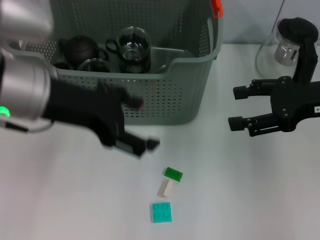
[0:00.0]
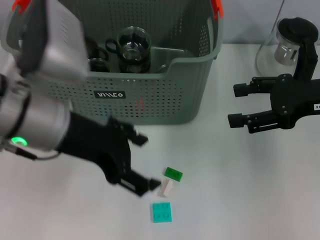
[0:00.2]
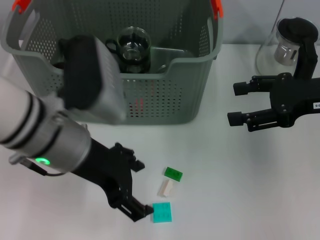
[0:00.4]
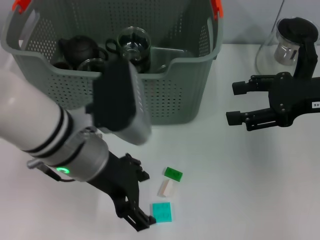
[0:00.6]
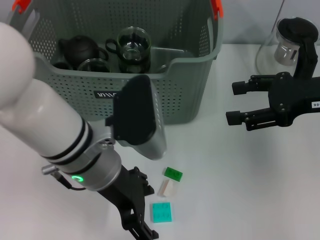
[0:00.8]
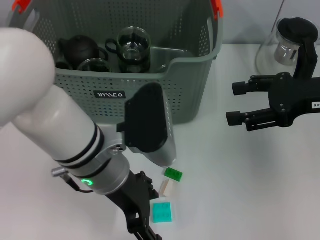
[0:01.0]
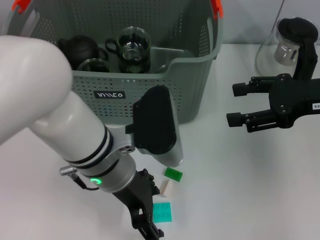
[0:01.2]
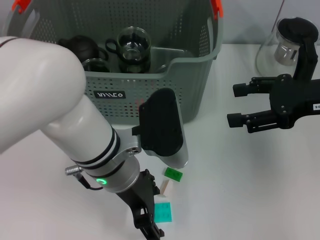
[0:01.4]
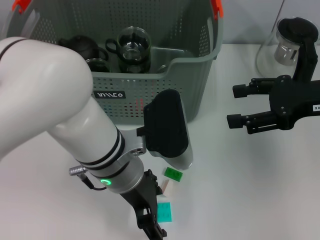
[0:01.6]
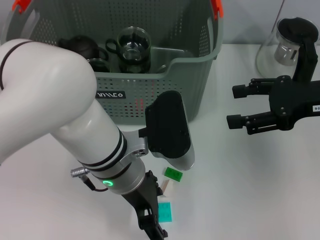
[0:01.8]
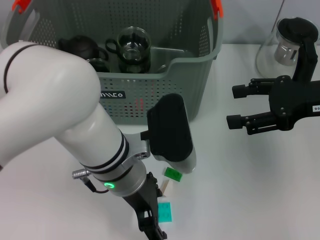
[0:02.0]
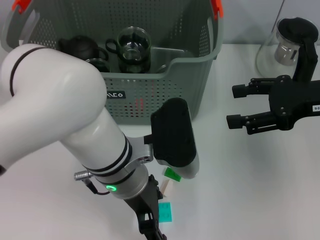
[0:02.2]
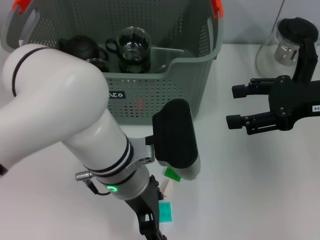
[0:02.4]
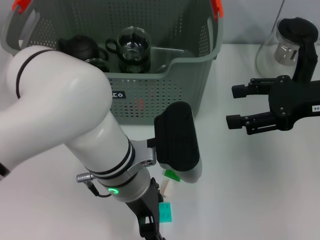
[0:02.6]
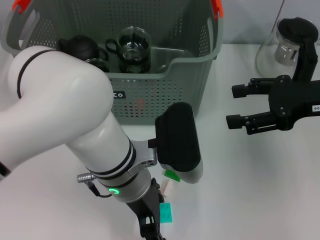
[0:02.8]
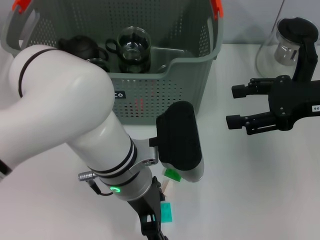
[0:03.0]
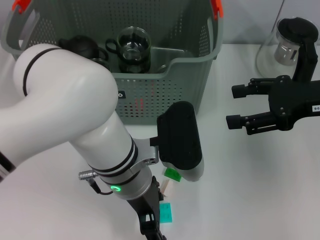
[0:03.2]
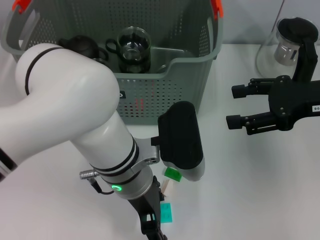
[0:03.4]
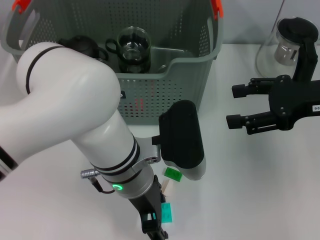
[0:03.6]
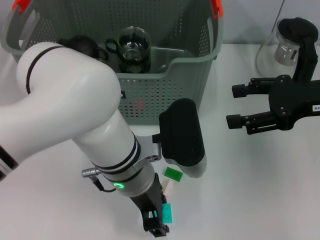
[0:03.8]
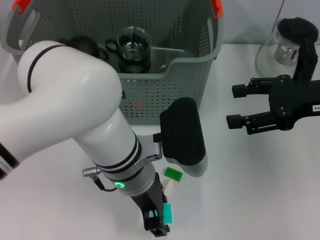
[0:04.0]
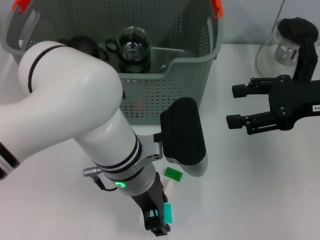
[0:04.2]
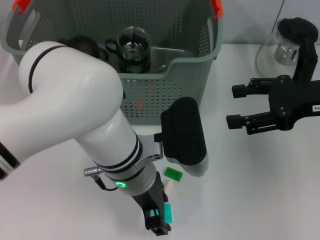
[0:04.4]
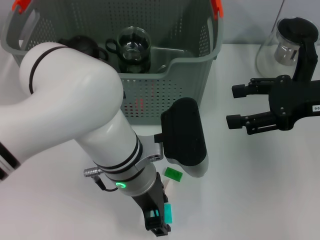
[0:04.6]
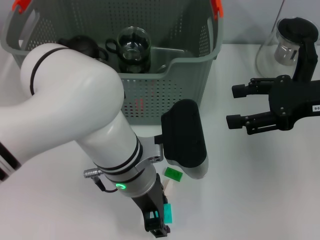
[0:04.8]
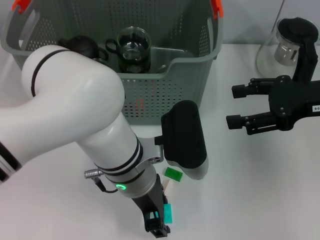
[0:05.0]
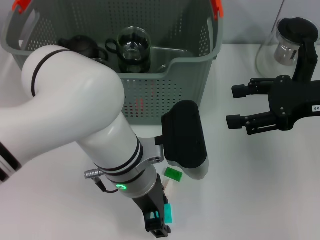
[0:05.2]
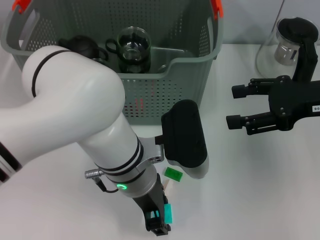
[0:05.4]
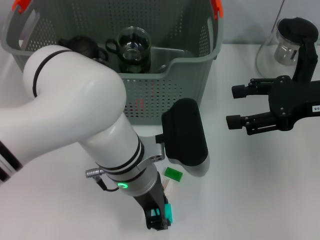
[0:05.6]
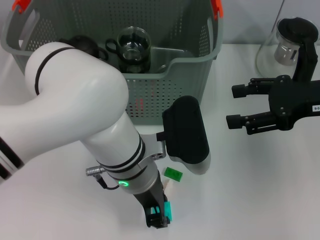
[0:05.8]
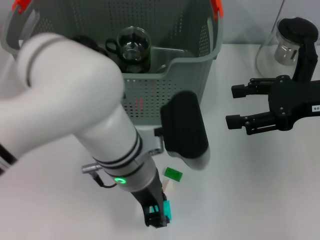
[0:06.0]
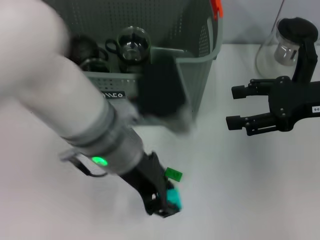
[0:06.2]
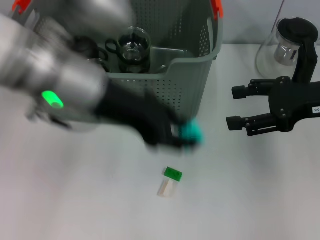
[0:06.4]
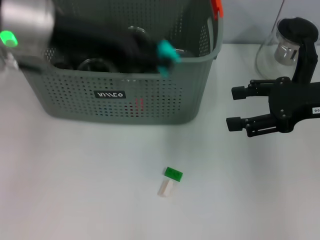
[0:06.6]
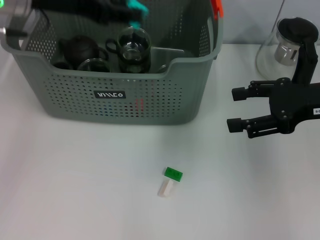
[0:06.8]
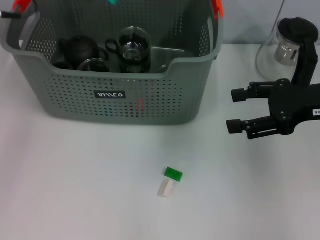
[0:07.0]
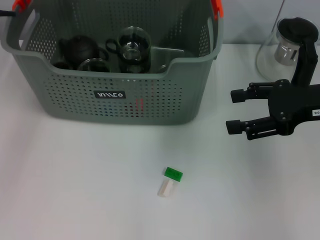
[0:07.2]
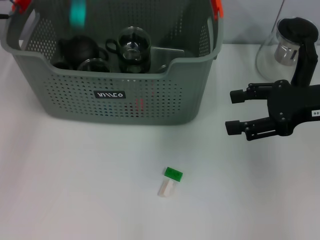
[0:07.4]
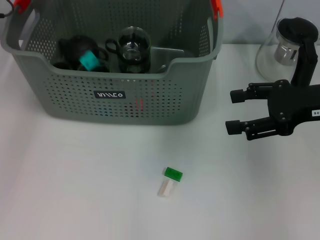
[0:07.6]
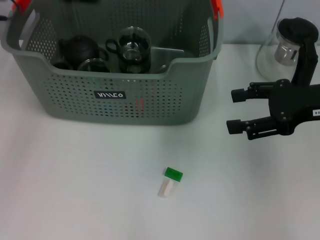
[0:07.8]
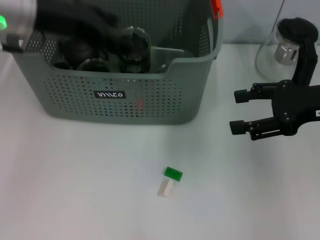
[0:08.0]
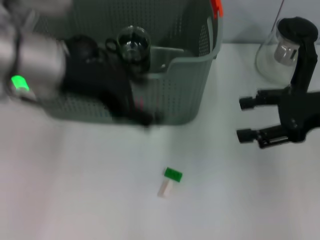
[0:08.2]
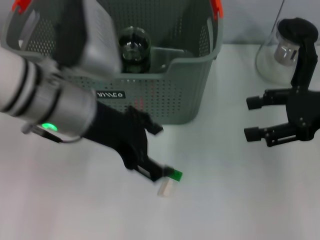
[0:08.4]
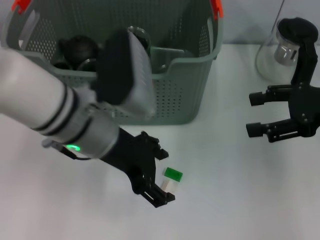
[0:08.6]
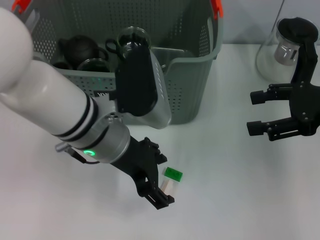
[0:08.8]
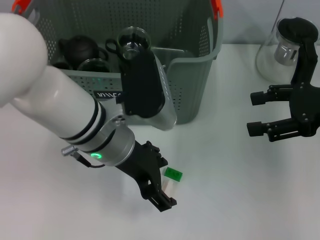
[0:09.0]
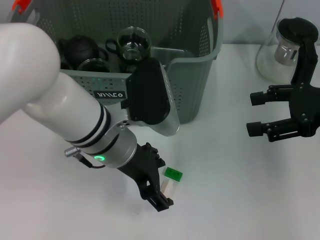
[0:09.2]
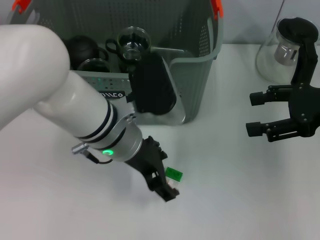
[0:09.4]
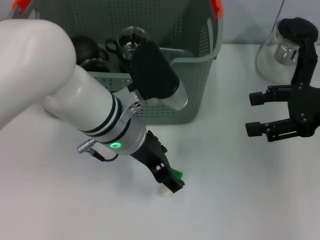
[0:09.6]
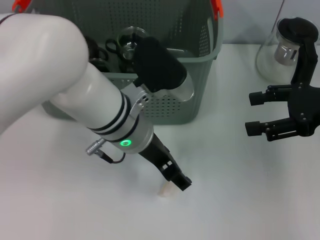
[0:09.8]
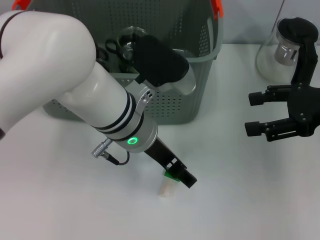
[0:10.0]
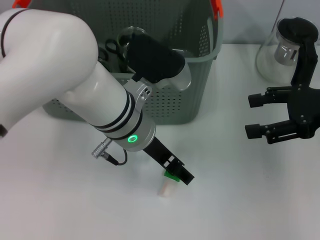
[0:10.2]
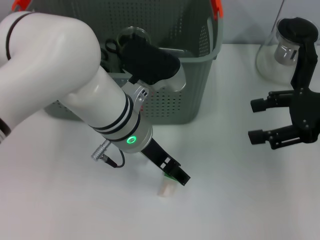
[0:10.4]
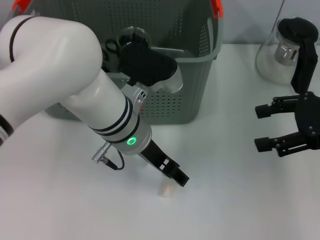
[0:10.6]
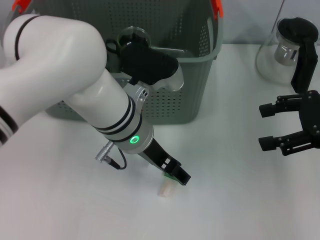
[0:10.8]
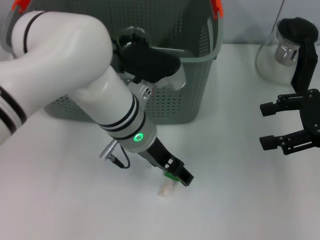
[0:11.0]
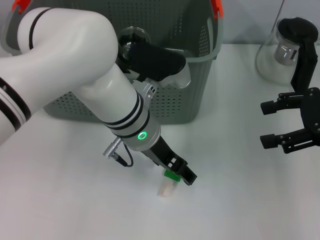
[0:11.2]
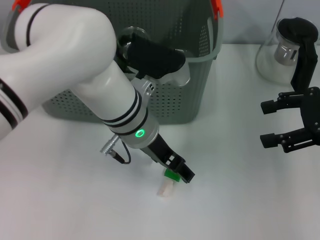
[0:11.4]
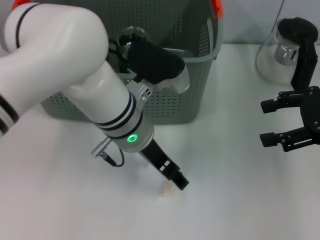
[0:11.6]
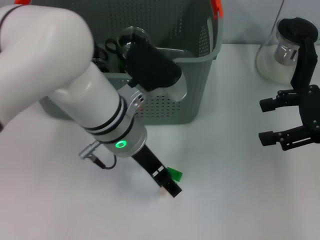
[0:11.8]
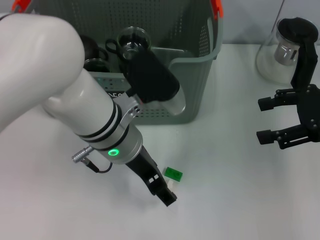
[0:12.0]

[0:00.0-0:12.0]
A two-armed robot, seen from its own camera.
Task of the whole recording: pick up the teacup on the table and place it into the storage bin, pick up the block on the table and place it into the storage bin.
Step, 0:00.0 to 0:05.6: Grasp the light blue block with left gripper.
Step, 0:06.0 to 0:07.6: Place the light blue block in the storage box with left gripper.
0:00.0 to 0:01.6: The left gripper shifts roughly 15 cm to the right and downward.
0:01.6 to 0:03.0: There are only small adjustments of the grippers.
0:03.0 to 0:06.0: Both grippers stay put.
0:06.0 to 0:07.6: The left gripper shifts about 30 cm to the left, forward and upward.
0:07.6 to 0:09.0: The left gripper goes about 25 cm to the right, backward and downward, and opens its fingers.
0:10.4 to 0:12.0: There are only small adjustments of the grippers.

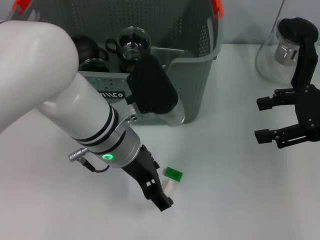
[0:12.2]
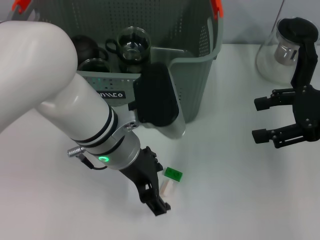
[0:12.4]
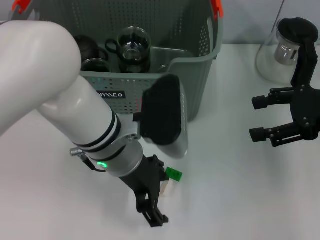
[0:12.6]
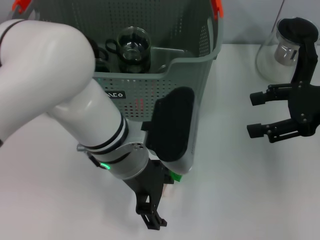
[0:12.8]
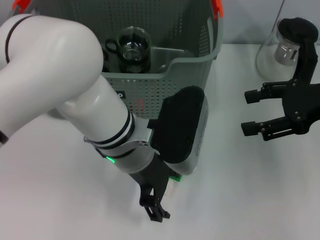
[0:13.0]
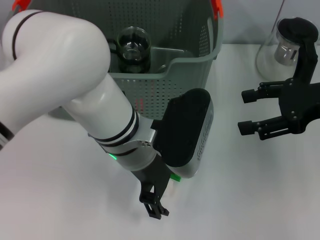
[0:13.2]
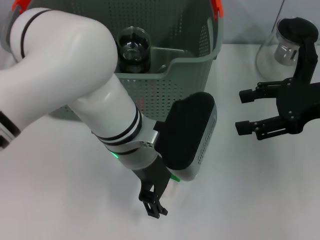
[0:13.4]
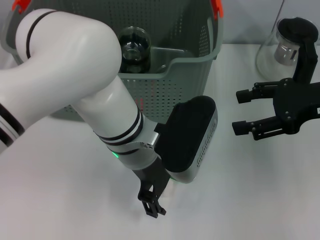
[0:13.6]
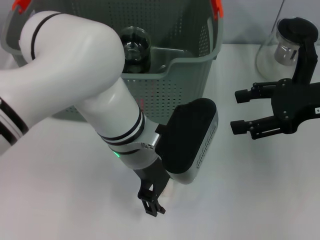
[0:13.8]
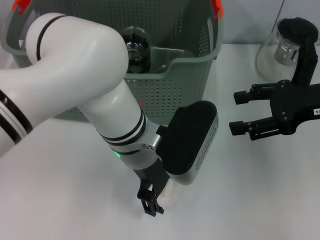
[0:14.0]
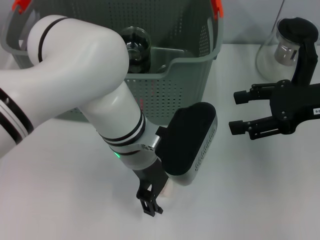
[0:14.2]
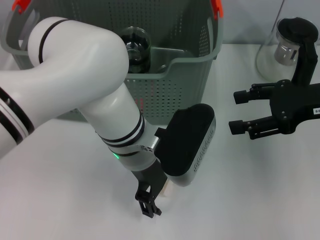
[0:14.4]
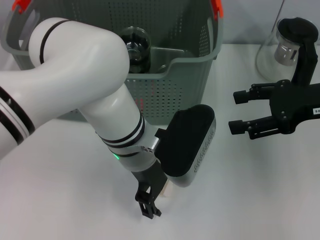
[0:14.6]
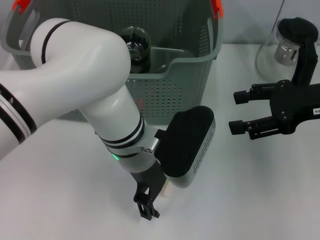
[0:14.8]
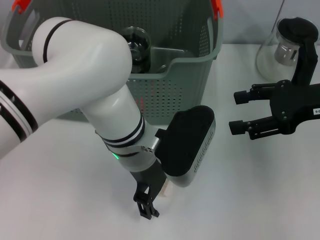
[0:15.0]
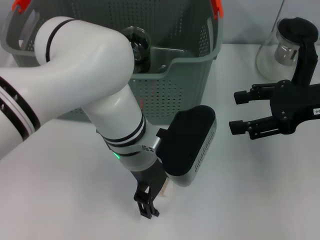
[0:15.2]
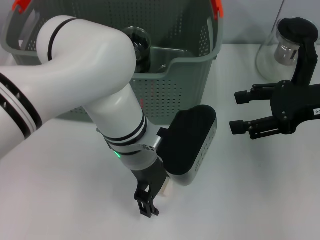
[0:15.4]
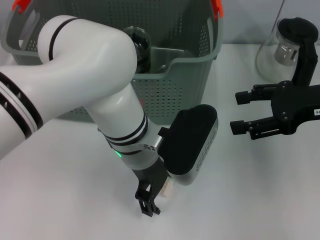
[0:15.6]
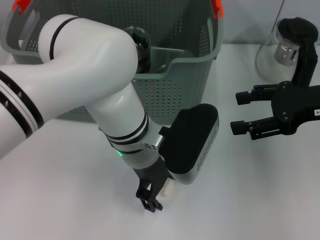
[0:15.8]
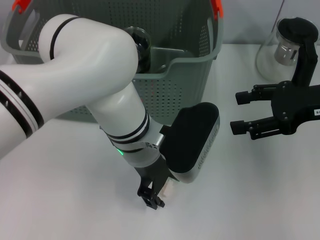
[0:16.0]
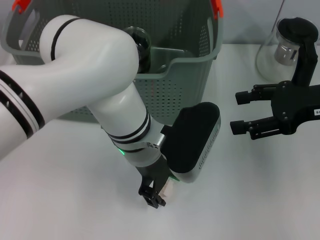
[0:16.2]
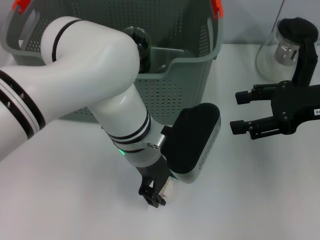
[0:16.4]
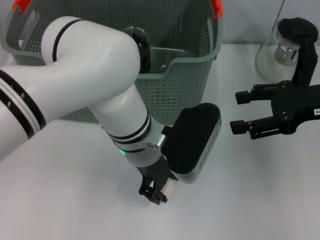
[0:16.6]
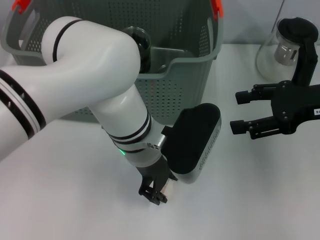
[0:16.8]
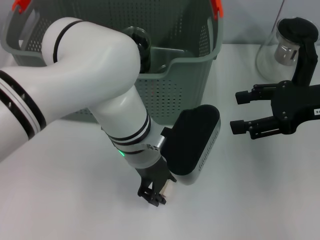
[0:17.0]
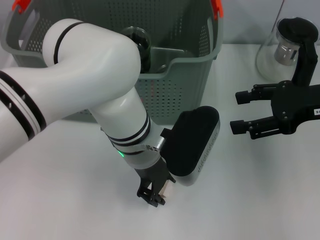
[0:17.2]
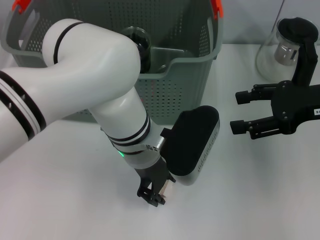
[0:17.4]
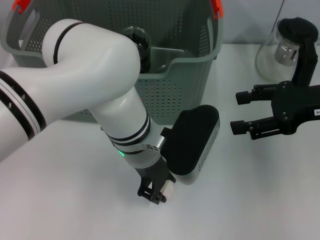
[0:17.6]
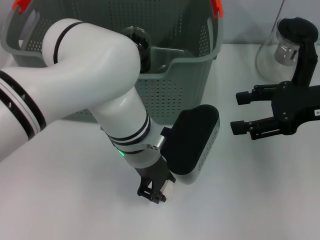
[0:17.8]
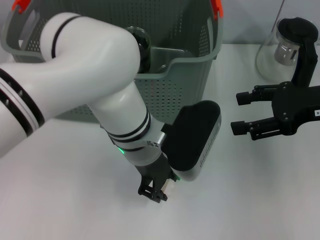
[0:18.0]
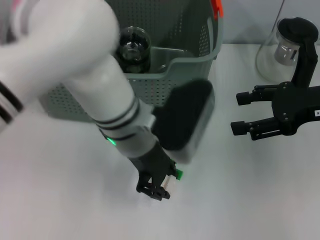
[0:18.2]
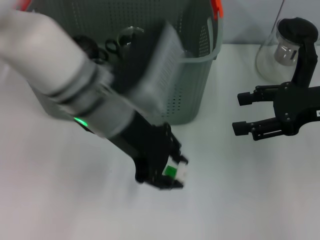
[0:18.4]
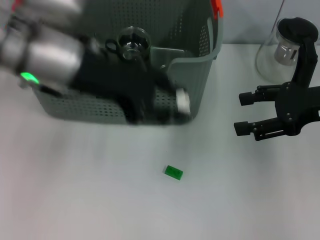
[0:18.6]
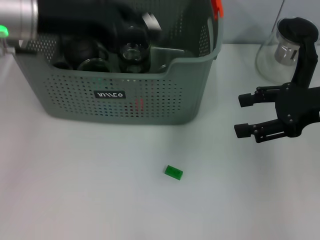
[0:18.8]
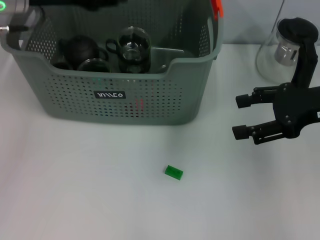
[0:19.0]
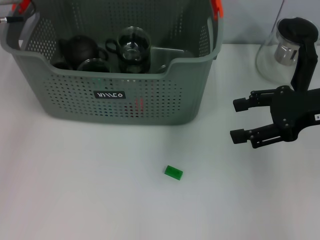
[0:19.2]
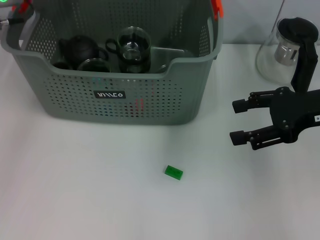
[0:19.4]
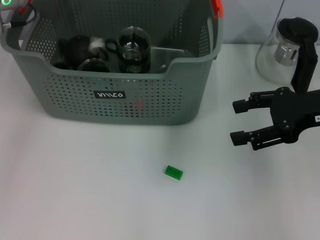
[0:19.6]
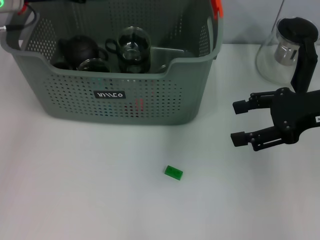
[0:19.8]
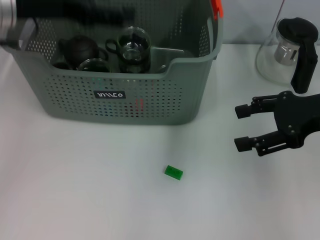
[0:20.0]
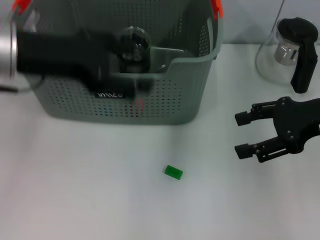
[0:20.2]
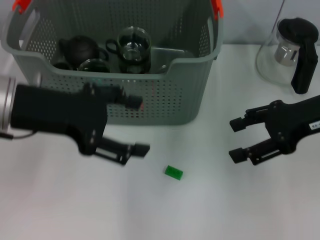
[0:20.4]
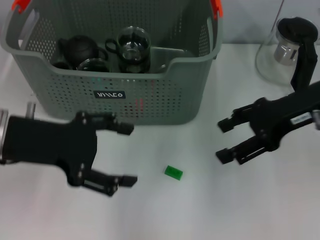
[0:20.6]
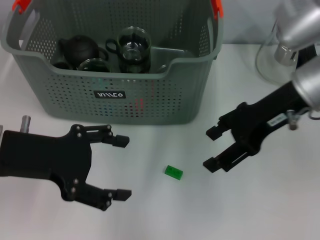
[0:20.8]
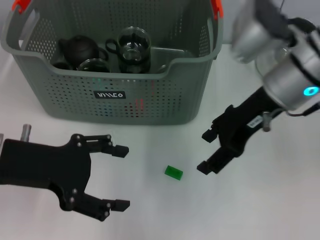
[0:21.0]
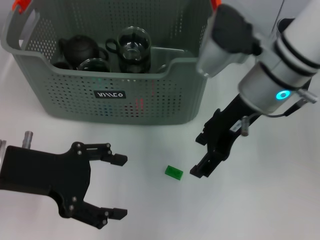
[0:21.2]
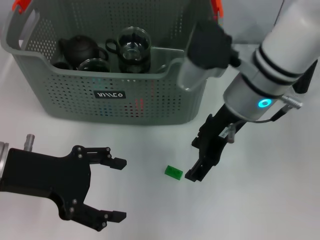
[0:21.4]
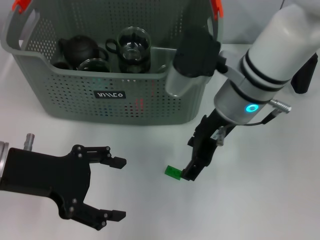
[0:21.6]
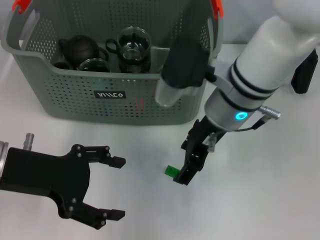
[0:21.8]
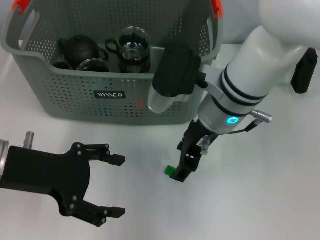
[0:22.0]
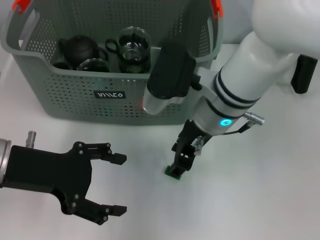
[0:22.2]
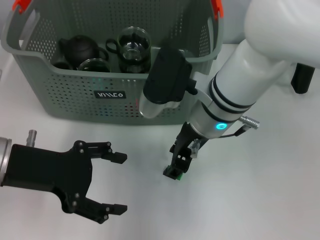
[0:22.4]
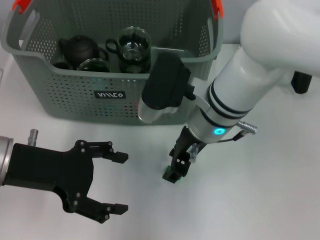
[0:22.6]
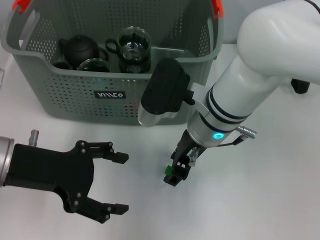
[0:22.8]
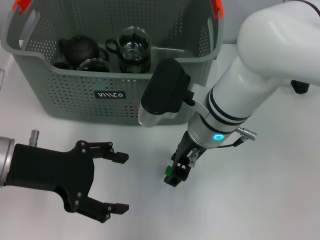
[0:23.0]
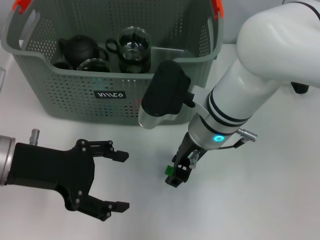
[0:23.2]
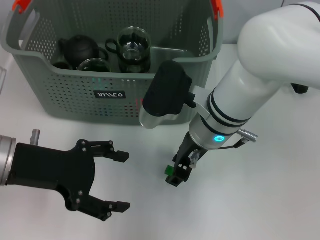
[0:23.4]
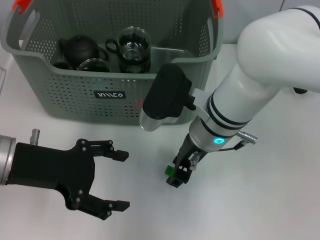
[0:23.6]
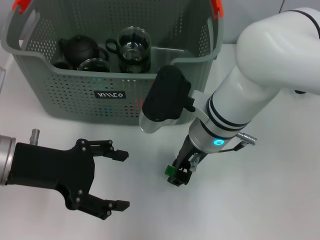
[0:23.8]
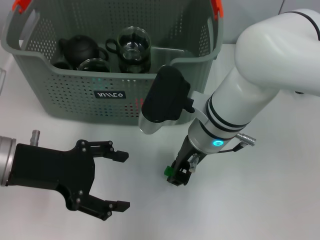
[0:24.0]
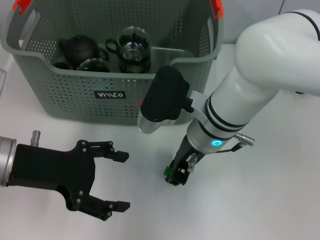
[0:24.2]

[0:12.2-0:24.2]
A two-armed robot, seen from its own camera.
Task of the whole recording: pick up the teacup on the table and place it into the storage bin, pick up the block on the table and place it into the storage bin.
Step, 0:12.2 to 0:17.6: Grasp the white block with left gripper.
Step, 0:18.0 to 0:19.6: Place the white block in the storage box with left gripper.
0:13.8 to 0:15.2: Both grippers stay about where they are.
0:15.2 to 0:16.6: Neither gripper changes place.
0:18.2 to 0:19.8: The left gripper goes some 25 cm to the left and forward.
0:19.8 to 0:21.2: The right gripper heads to the left, covering approximately 15 cm. The left gripper shifts approximately 20 cm backward.
0:21.2 to 0:22.6: The right gripper goes some 10 cm to the left and downward.
0:22.6 to 0:24.2: The grippers move only a little.
